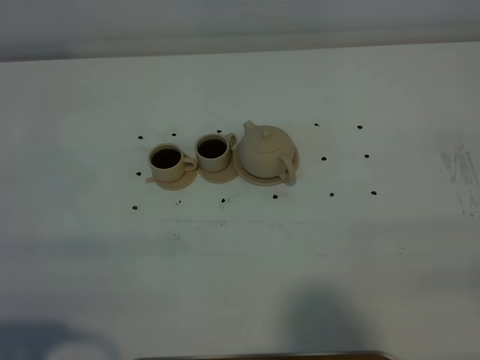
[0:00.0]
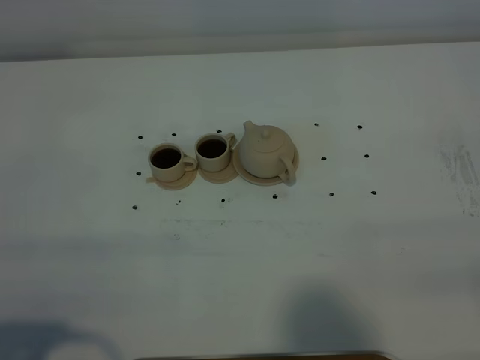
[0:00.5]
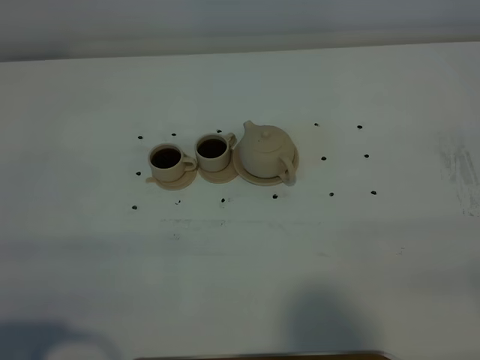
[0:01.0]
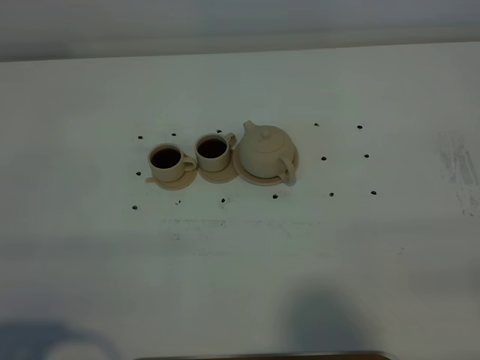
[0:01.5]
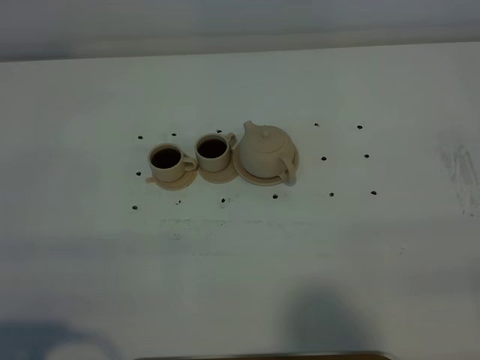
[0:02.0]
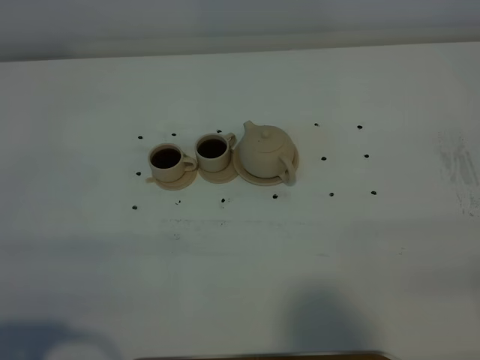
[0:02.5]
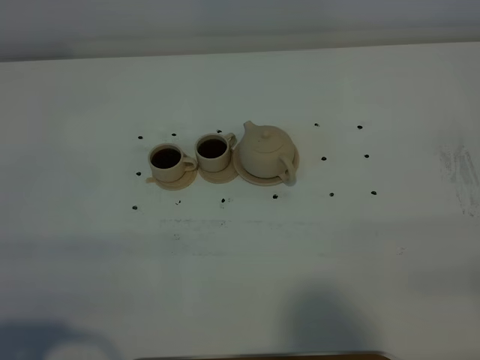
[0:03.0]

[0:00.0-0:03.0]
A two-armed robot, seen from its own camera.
Task of the whole recording: grasp the brown teapot and pour the tea into the two brown teacups one by one, put the brown teapot back in its original place.
0:00.0 to 0:03.0: Neither gripper changes place.

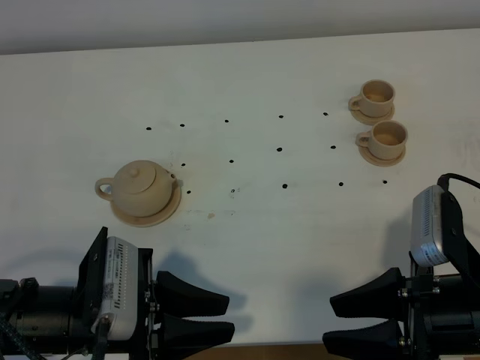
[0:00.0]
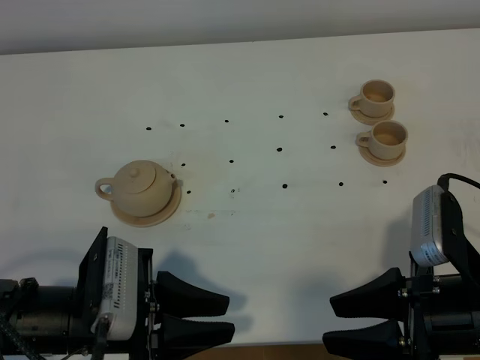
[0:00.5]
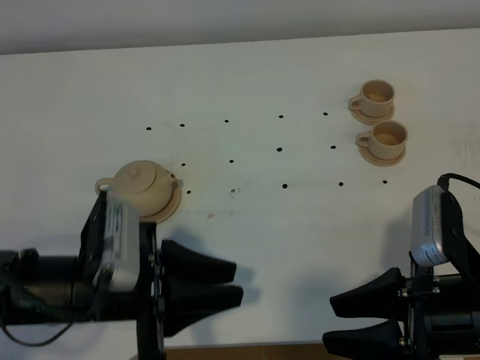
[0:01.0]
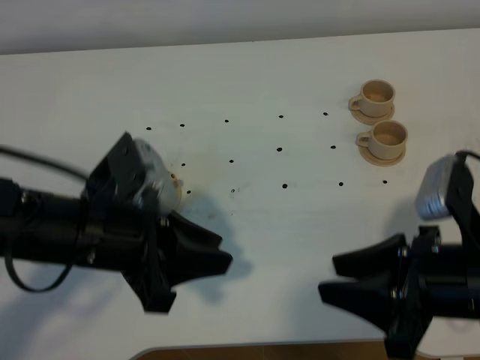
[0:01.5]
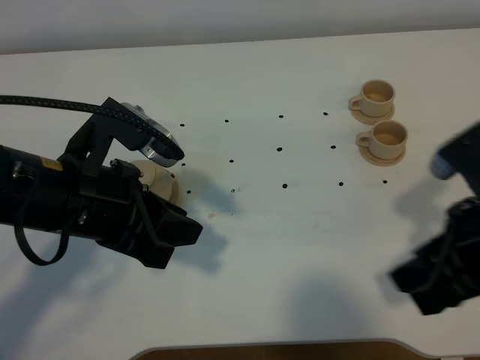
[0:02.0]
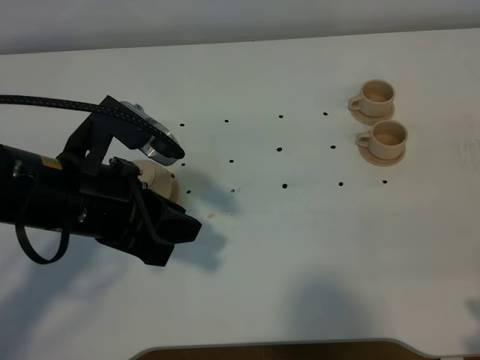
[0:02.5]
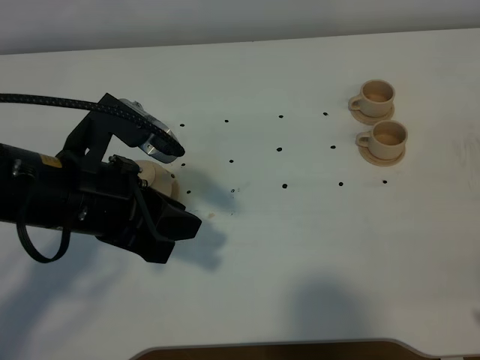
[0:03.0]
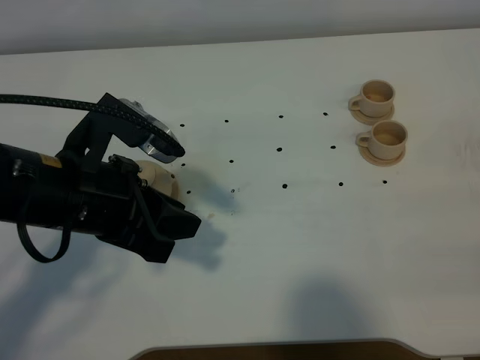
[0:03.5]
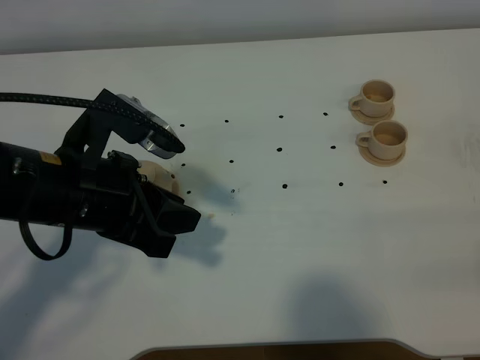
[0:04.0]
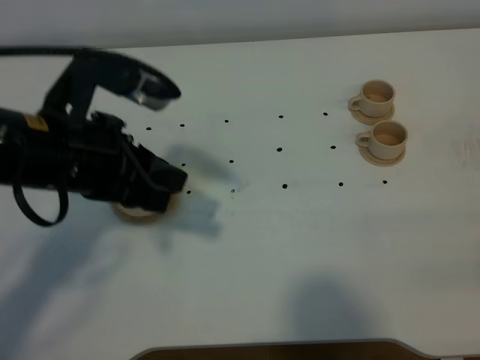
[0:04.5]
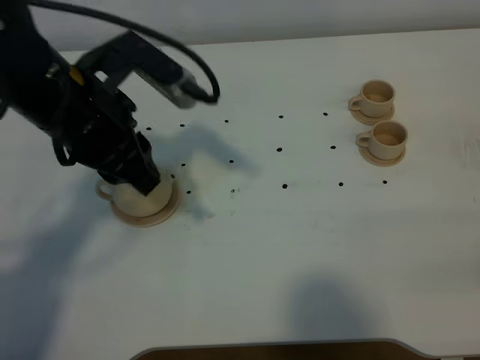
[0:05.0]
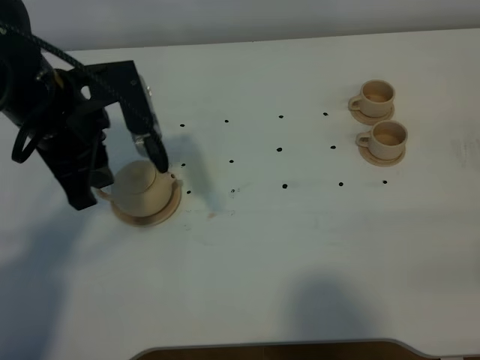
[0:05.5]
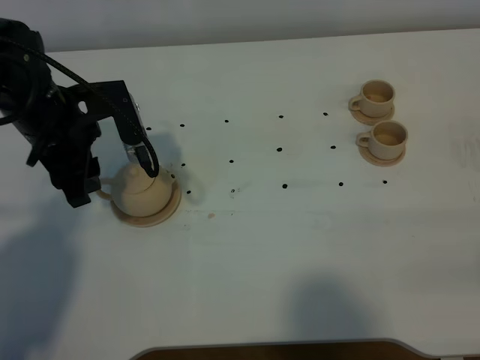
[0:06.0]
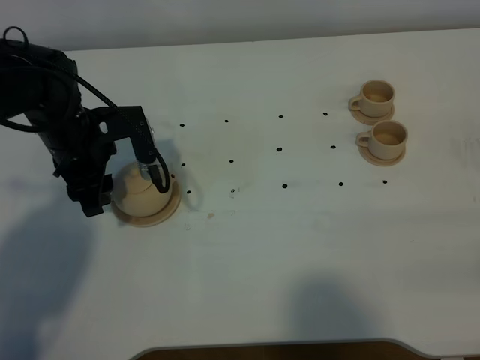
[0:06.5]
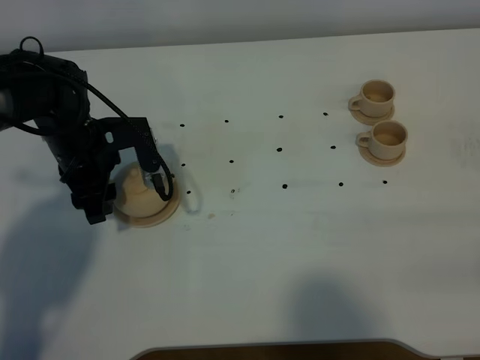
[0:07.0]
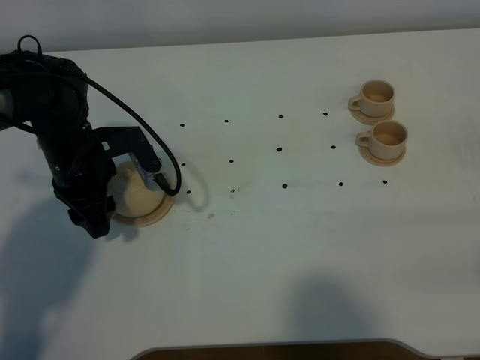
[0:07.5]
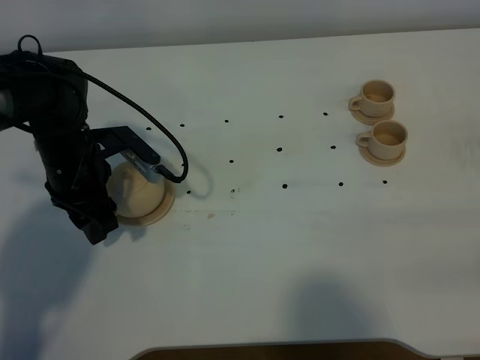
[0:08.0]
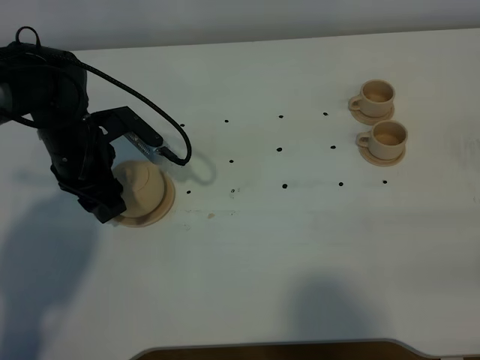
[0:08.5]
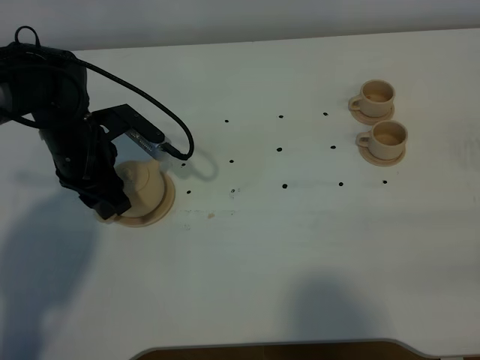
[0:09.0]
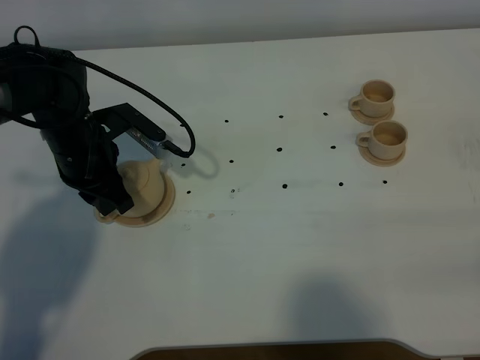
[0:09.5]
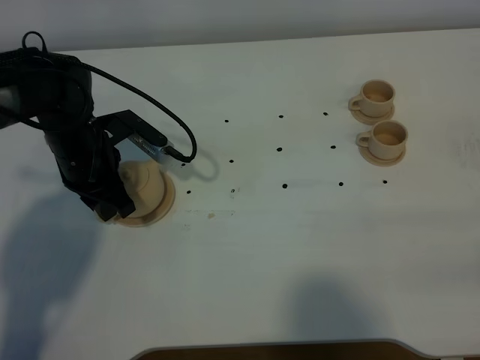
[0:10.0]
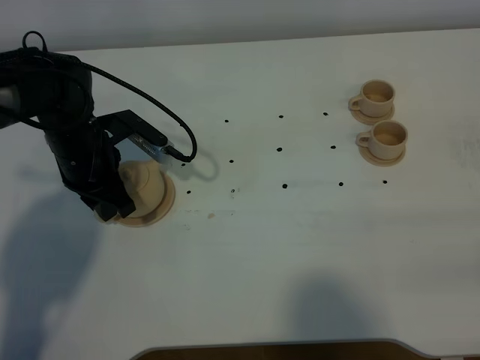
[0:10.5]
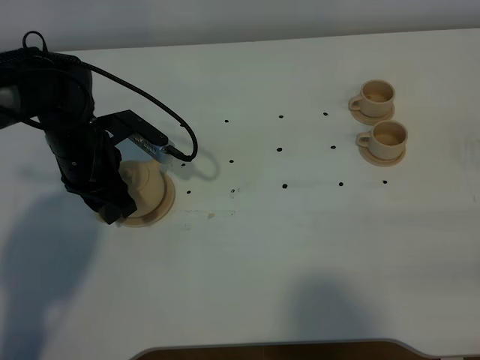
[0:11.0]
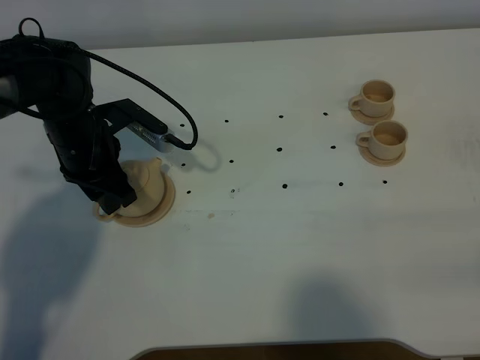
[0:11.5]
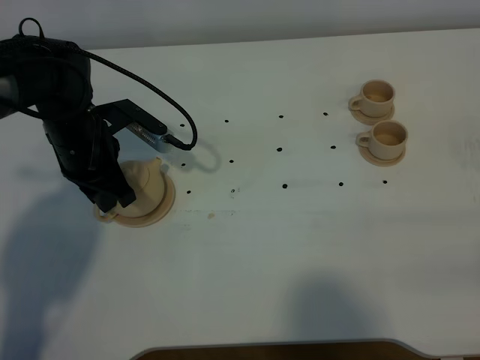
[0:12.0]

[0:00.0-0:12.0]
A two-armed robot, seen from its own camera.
Task of the whole recording: grasp the brown teapot and pour the tea into the two brown teacups one by one, put the brown teapot back in its original place.
0:00.0 to 0:02.0: The left gripper goes approximately 10 cm upward and forward. The right gripper goes roughly 5 cm upward.
0:02.0 to 0:04.0: The right gripper shifts roughly 15 cm backward and to the right.
0:04.0 to 0:06.0: The left gripper is displaced forward and to the left by about 15 cm, and opens its fingers.
0:06.0 to 0:08.0: The left gripper is displaced downward by about 5 cm.
0:08.0 to 0:10.0: The left gripper closes its fingers.
0:10.0 to 0:12.0: The left gripper opens, then closes once more.

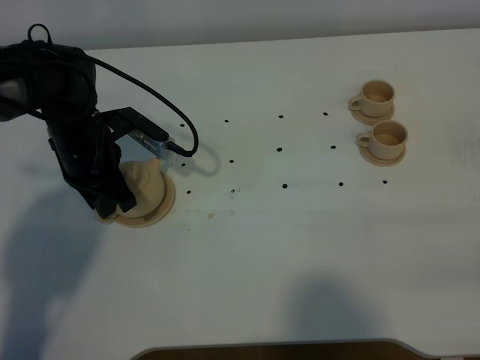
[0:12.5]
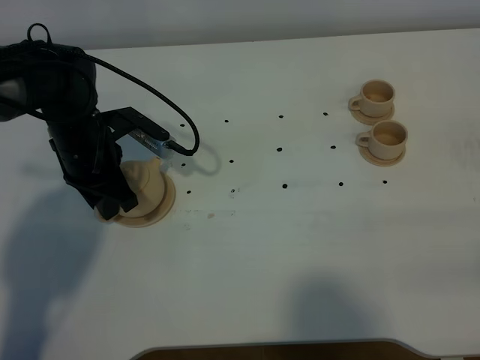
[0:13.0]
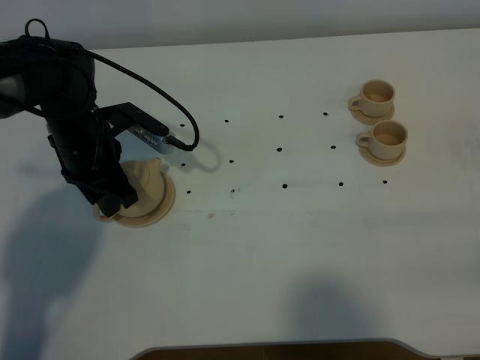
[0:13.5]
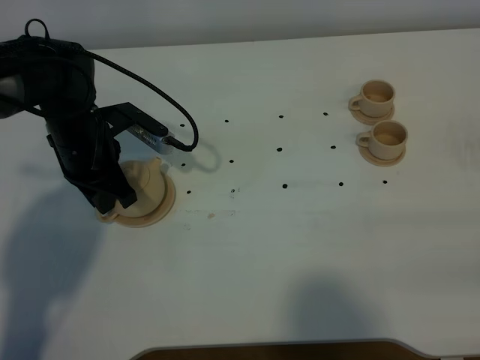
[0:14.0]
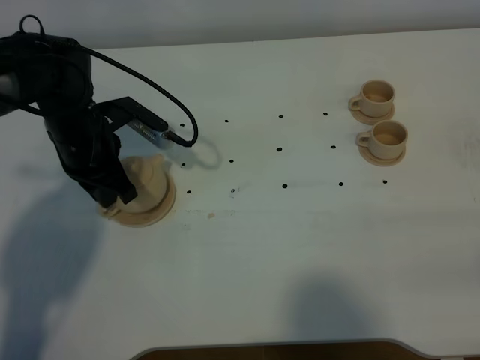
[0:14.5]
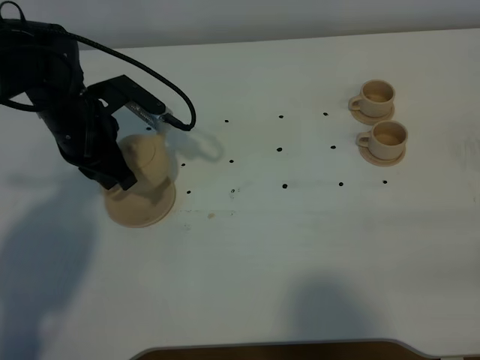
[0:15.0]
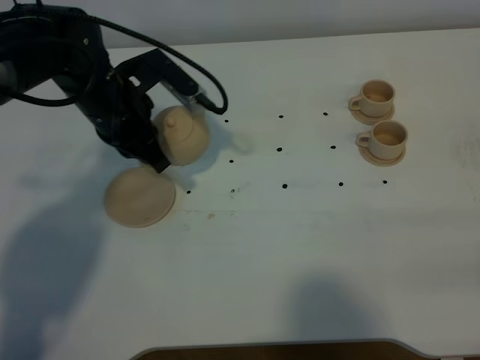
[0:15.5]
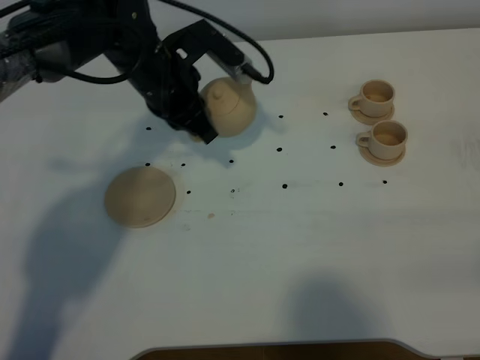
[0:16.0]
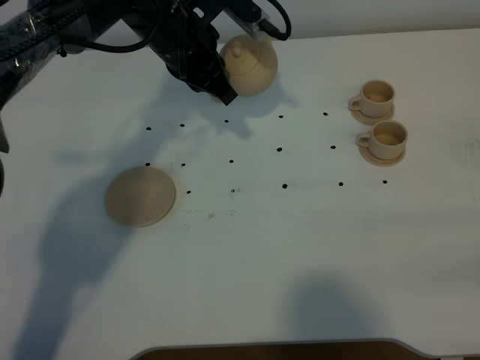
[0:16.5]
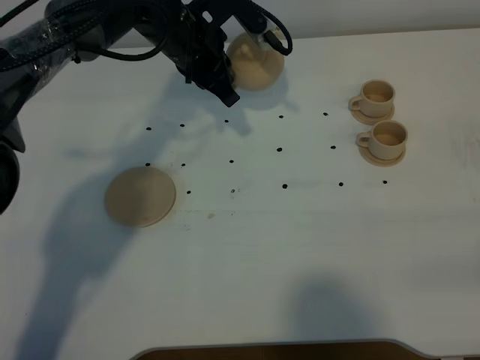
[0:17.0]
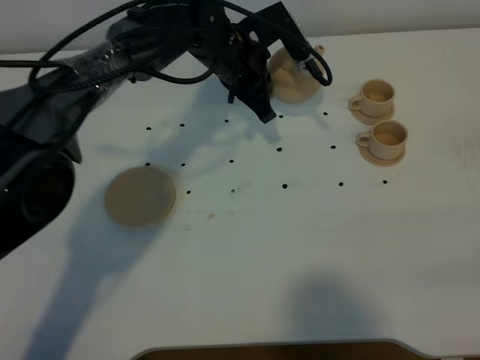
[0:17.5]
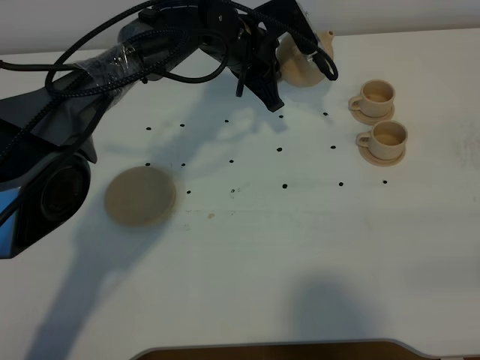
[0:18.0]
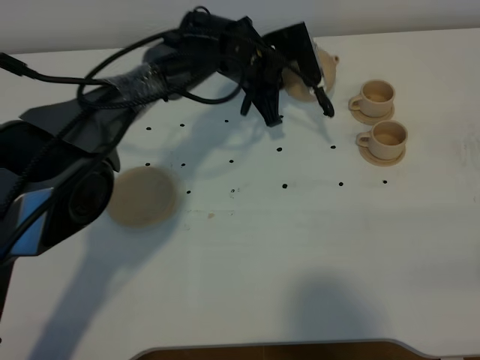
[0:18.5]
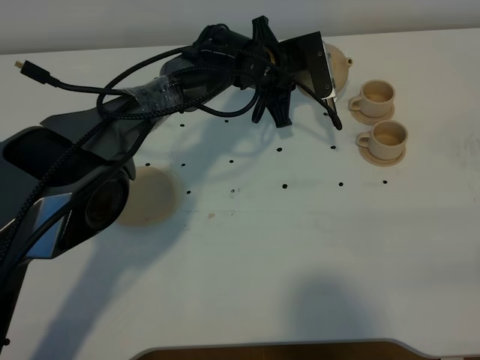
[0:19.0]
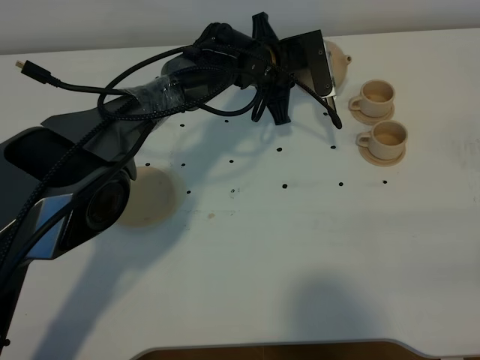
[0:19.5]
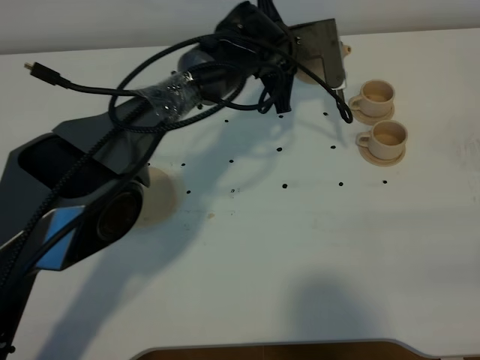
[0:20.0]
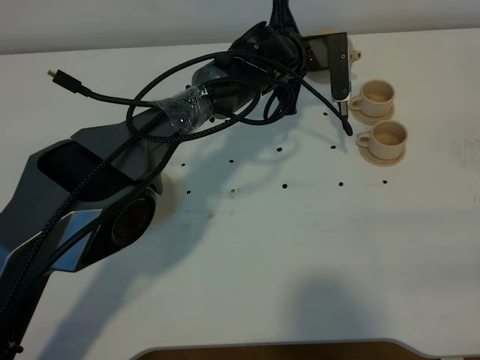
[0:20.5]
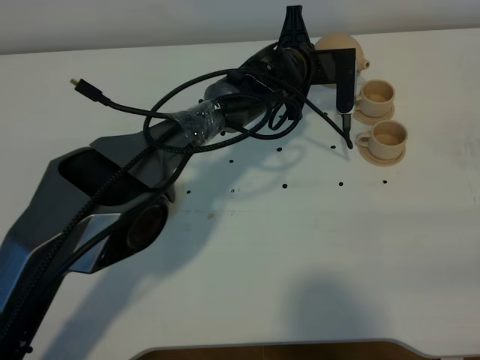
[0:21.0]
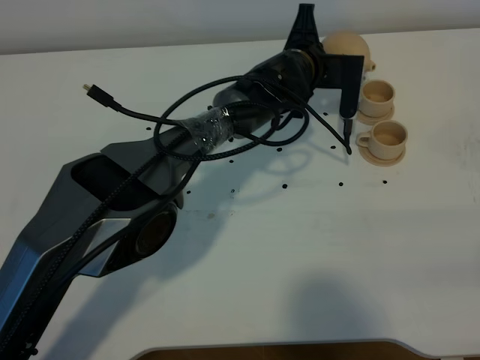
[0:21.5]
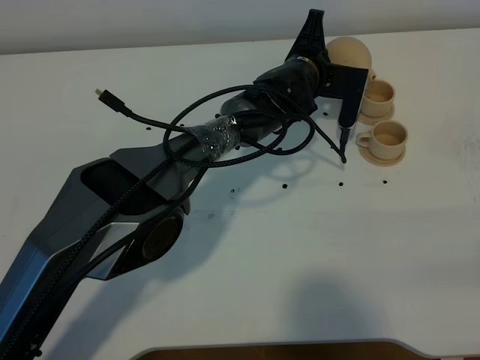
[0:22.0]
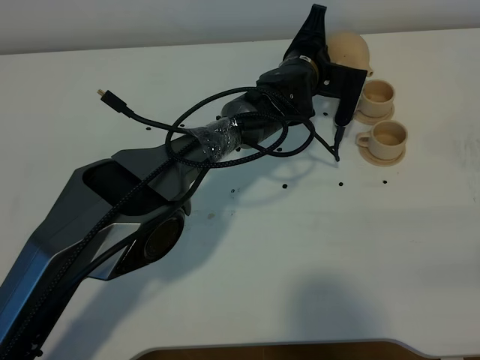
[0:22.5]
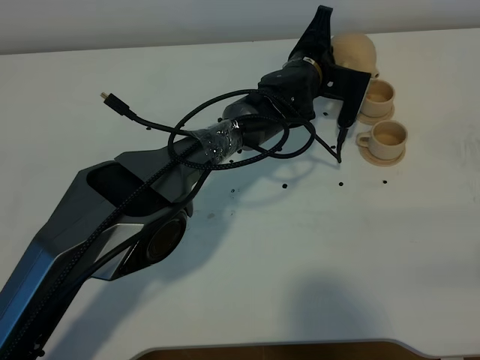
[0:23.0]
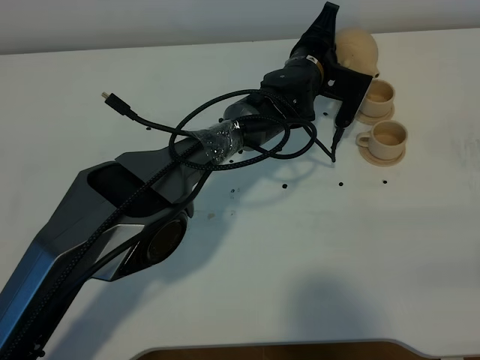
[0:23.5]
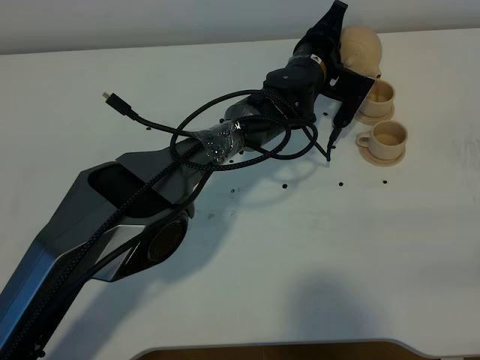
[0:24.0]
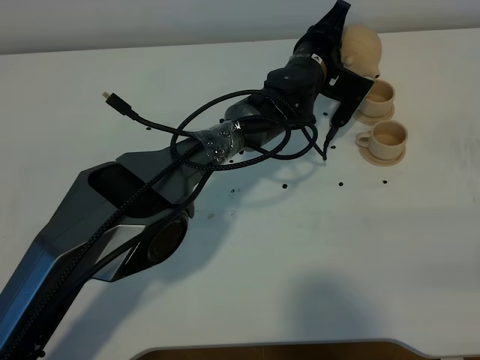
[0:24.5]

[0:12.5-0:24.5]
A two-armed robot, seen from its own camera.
Task of the whole recording: grasp the brown teapot and pour the tea into the two brown teacups one by one, put the brown teapot back in its original place.
0:12.5 to 0:14.5: The left gripper opens, then closes again.
0:14.5 to 0:16.5: The left gripper shifts about 15 cm to the right, forward and upward.
0:16.5 to 0:18.5: The left gripper shifts some 10 cm to the right and downward.
0:22.5 to 0:24.5: There are only small adjustments of the grippers.
